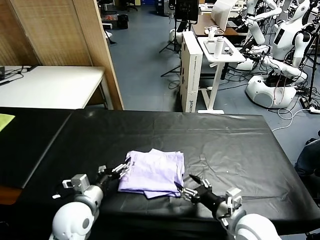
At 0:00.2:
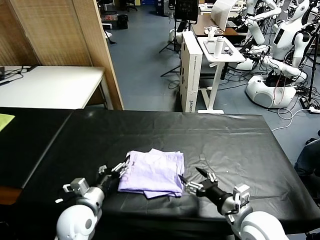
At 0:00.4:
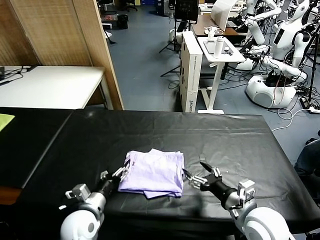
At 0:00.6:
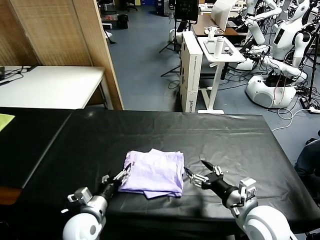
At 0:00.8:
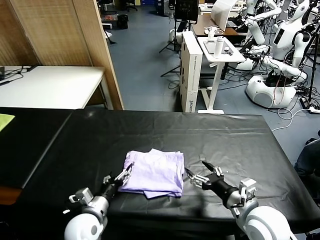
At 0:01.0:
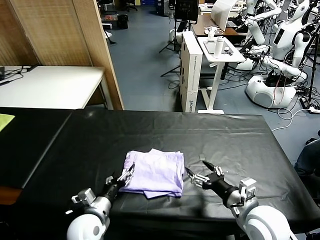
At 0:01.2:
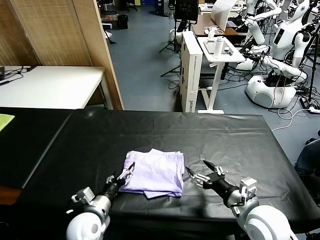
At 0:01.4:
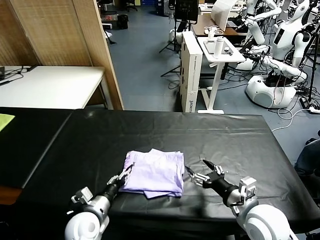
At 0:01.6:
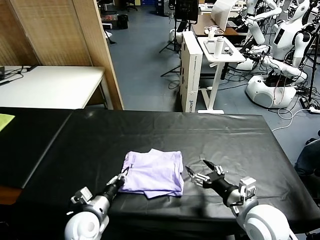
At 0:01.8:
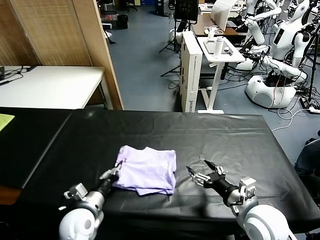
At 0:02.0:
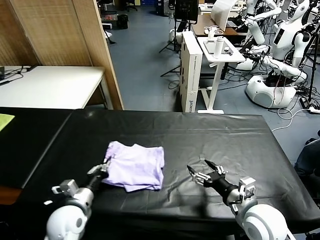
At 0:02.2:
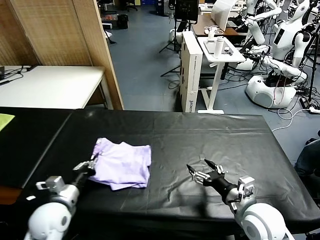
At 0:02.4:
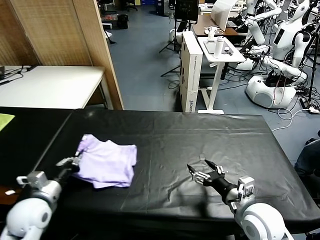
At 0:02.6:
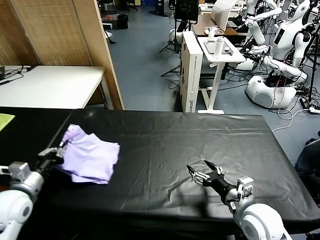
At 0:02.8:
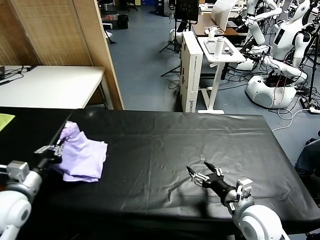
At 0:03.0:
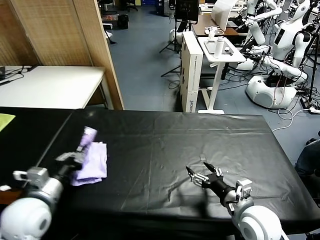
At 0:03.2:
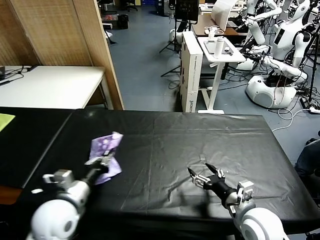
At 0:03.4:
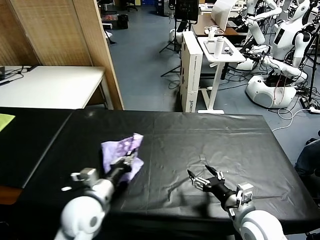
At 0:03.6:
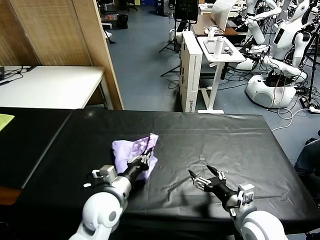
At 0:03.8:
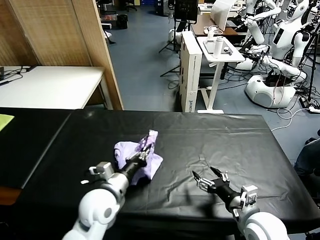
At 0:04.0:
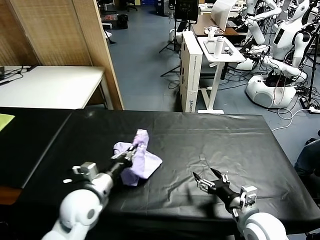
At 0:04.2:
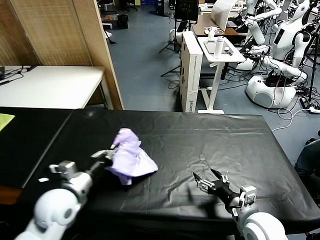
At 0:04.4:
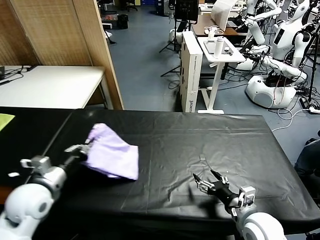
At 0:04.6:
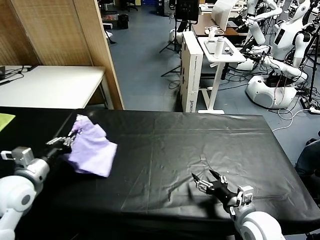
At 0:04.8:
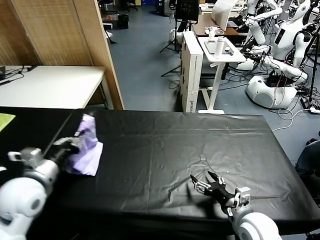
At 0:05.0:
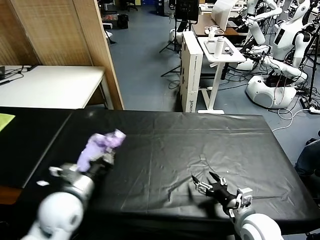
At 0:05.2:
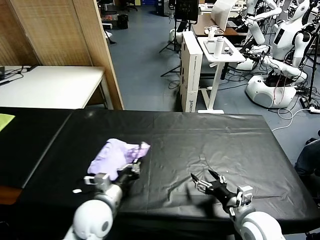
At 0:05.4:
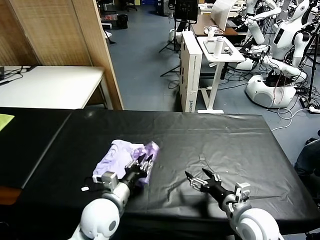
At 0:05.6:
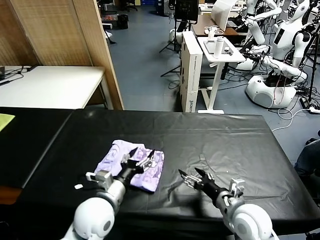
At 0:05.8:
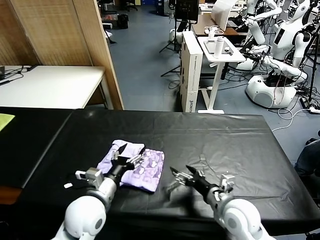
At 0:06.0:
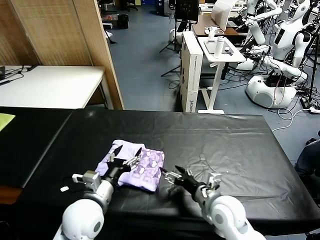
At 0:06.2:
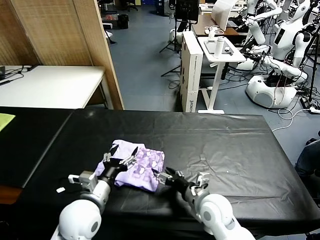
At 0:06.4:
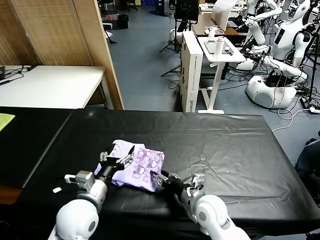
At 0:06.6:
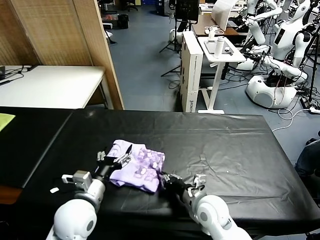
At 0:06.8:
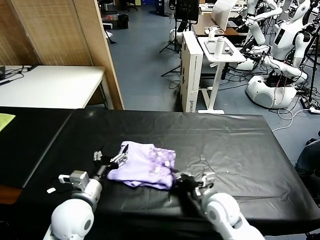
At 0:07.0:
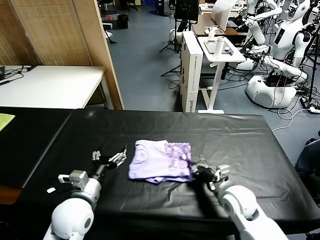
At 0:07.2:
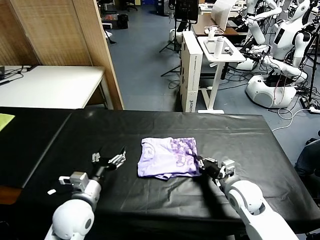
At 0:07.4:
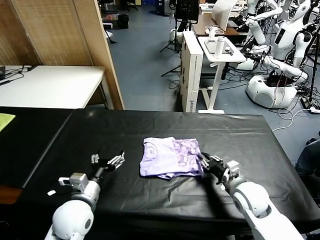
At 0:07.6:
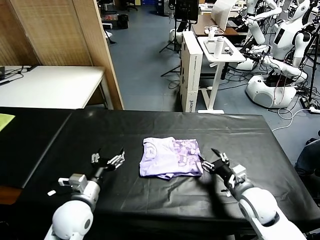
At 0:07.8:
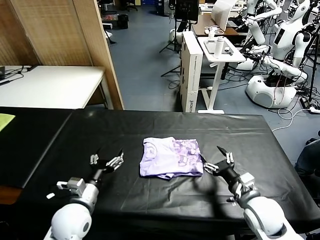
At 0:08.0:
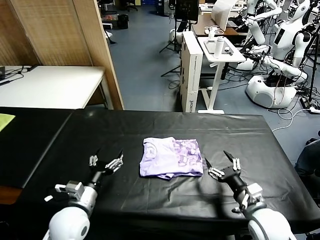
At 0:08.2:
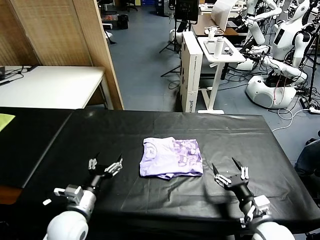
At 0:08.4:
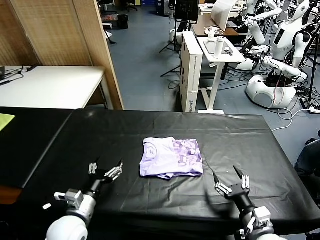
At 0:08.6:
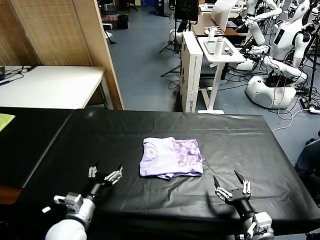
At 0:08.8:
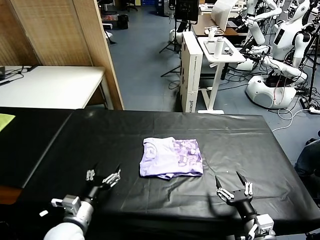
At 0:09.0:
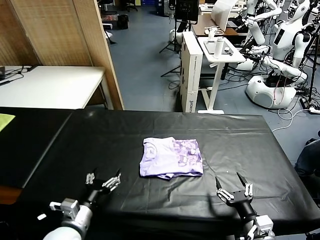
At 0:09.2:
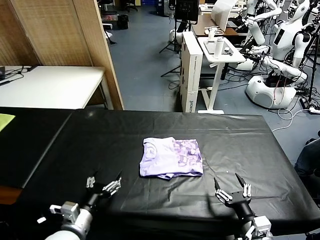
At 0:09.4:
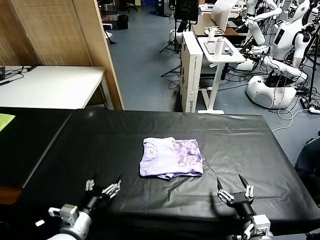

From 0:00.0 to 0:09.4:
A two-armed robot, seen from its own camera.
Task of the whole recording: fold and organize the clothes.
Step, from 0:00.0 to 0:05.6: Flip the folded clothes over with left gripper.
Step, from 0:05.8 to 0:07.6: Drag the clothes to the center of the table.
From 0:00.0 to 0:01.6: The left gripper travels downward by approximately 10 cm, and closes its fingers.
From 0:01.6 to 0:03.2: The left gripper shifts some 15 cm upward.
From 0:03.2 to 0:04.8: The left gripper shifts about 10 cm to the left and upward.
From 0:04.8 to 0:06.2: The right gripper moves to the left and forward, roughly 10 cm. Meanwhile the left gripper travels to the right and downward by roughly 15 cm, and opens.
From 0:06.2 to 0:07.8: The left gripper shifts by approximately 5 cm. The right gripper goes roughly 10 cm to the right, and closes and opens again.
From 0:07.8 to 0:09.4: The left gripper heads backward, covering some 5 cm. Meanwhile the right gripper moves backward, roughly 10 cm.
